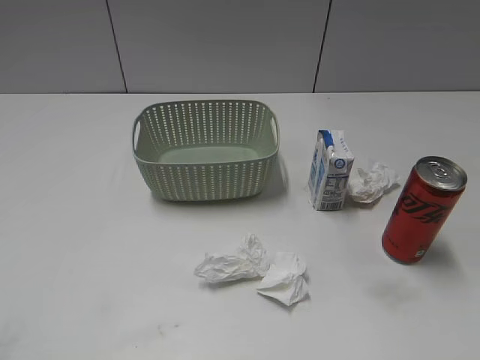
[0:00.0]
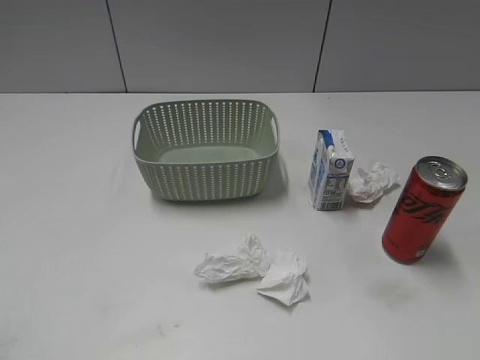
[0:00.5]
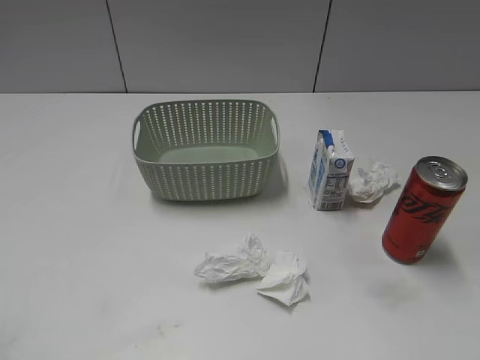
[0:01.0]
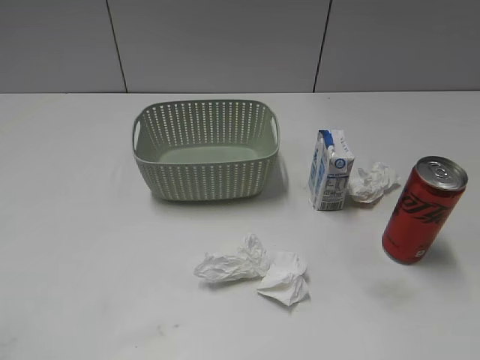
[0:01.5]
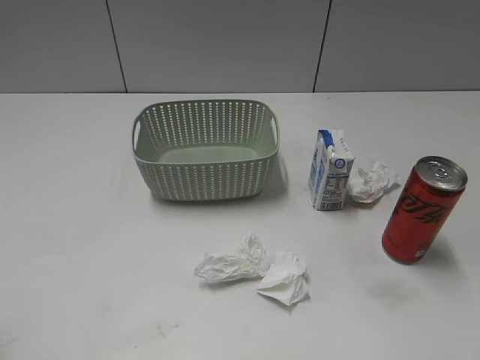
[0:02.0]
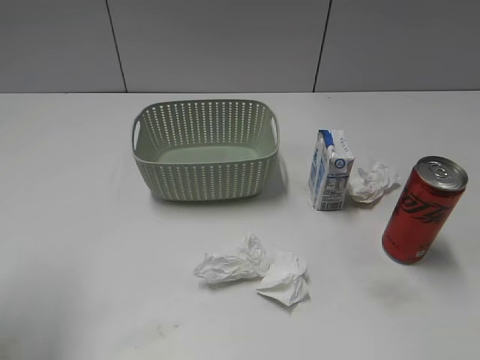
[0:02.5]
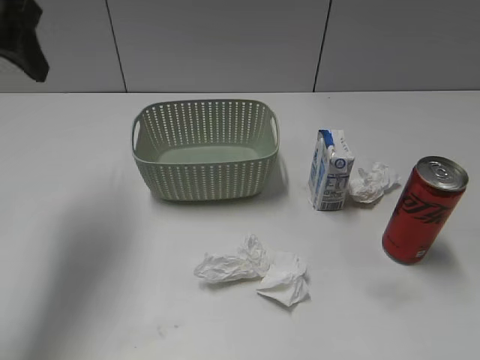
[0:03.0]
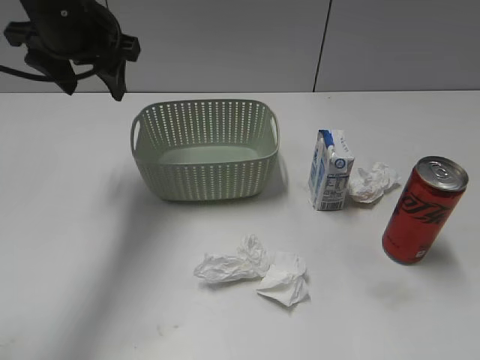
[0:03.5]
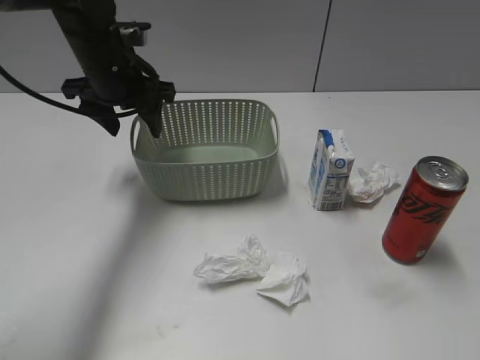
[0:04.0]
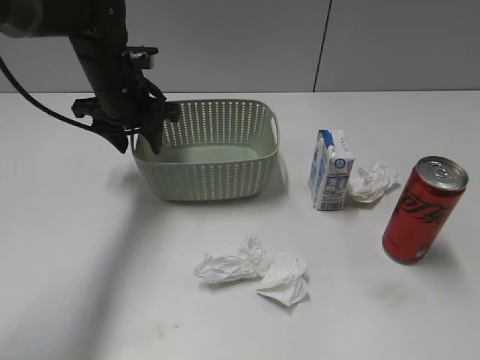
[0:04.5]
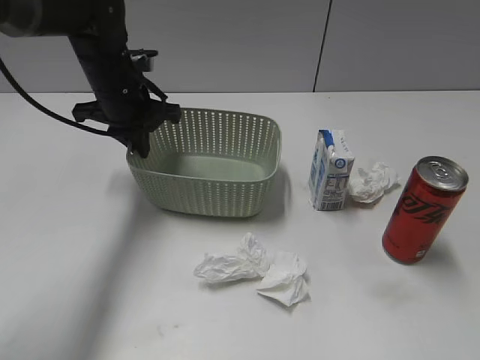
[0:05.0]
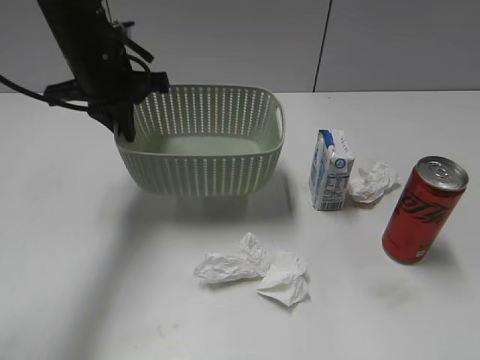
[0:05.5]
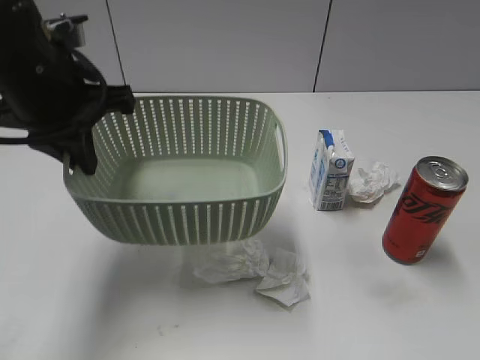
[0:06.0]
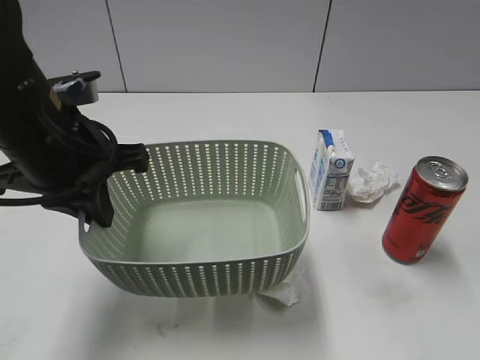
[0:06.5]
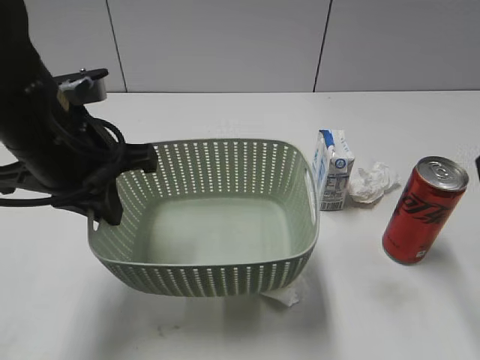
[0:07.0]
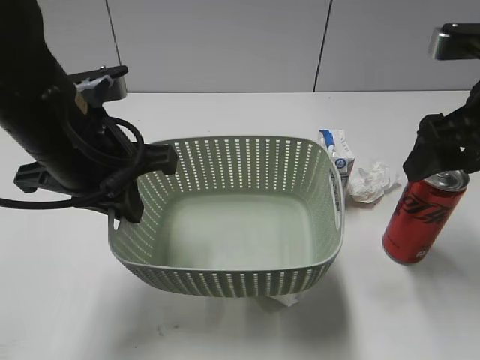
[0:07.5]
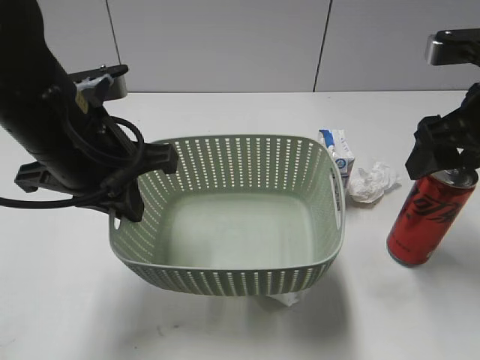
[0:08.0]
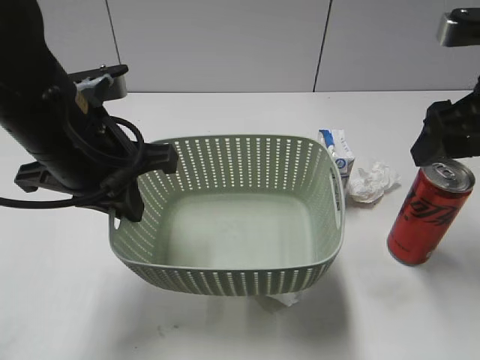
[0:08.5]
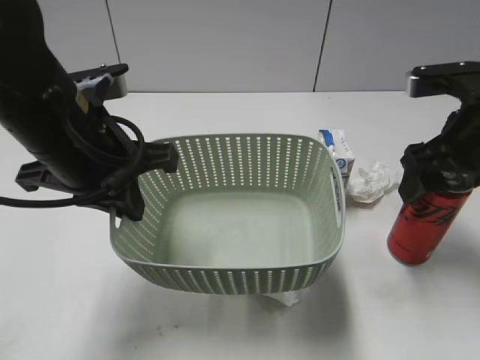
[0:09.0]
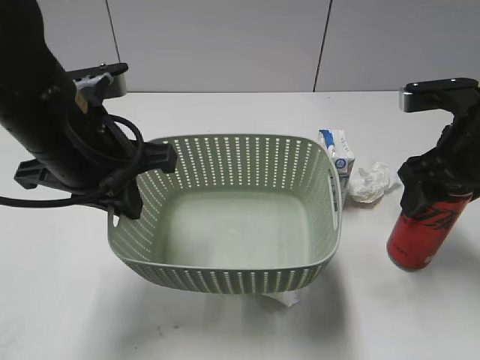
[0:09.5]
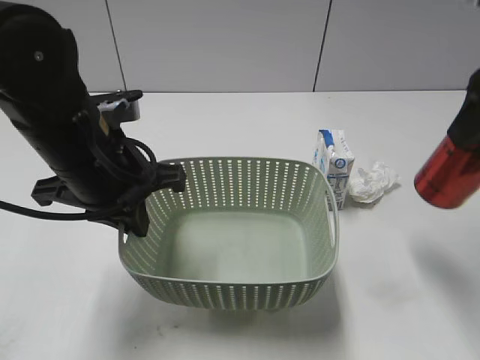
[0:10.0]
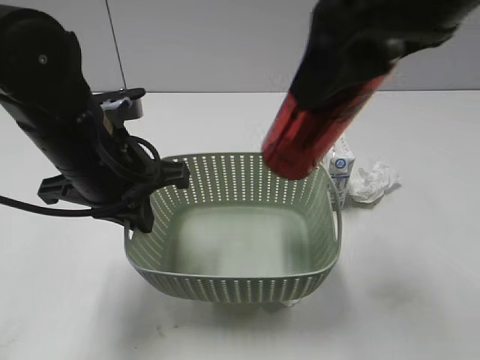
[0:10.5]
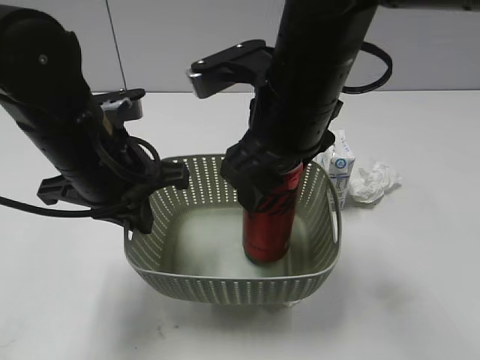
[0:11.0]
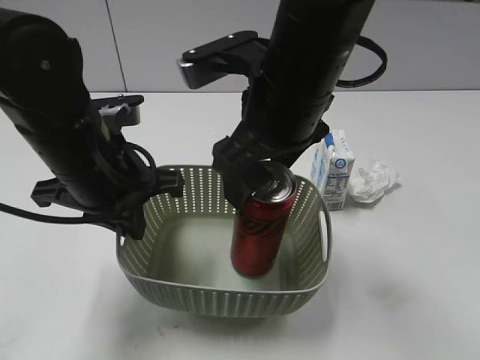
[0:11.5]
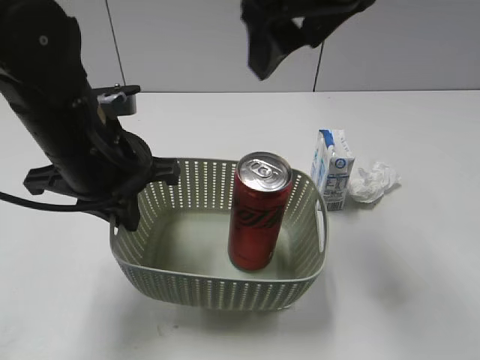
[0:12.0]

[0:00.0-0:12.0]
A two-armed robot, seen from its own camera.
Step, 0:03.0 to 0:04.5: Grasp the basket with left gripper.
Step, 0:05.0 to 0:06.5: Lift the basket with left gripper.
Step, 0:07.0 to 0:09.0: Grasp the cola can with right gripper.
Step, 0:09.5 to 0:11.5: Place the cola can in the basket with right gripper.
0:02.0 to 0:04.0: The left gripper moves forward and to the right, some 40 cm.
0:04.0 to 0:06.0: The left gripper heads backward and upward, covering some 15 cm, and closes its fingers.
0:06.0 to 0:08.0: The left gripper ends up about 5 cm from where it was; the right gripper travels forward by approximately 25 cm, and opens up.
0:08.0 to 0:10.0: The right gripper moves upward, approximately 10 cm, and closes up.
0:10.0 to 0:12.0: The right gripper shifts roughly 15 cm to the left, and opens up.

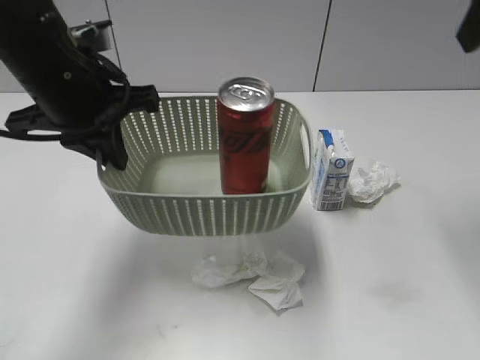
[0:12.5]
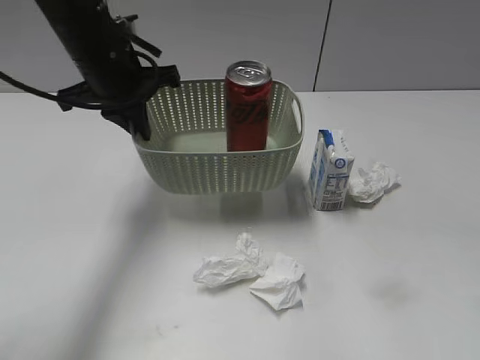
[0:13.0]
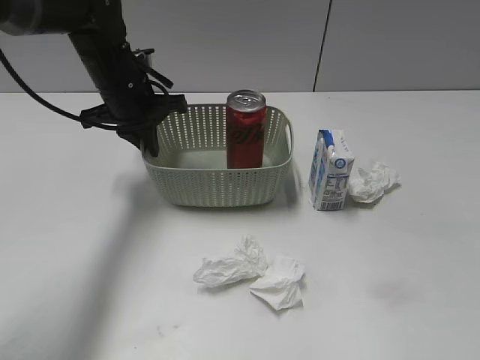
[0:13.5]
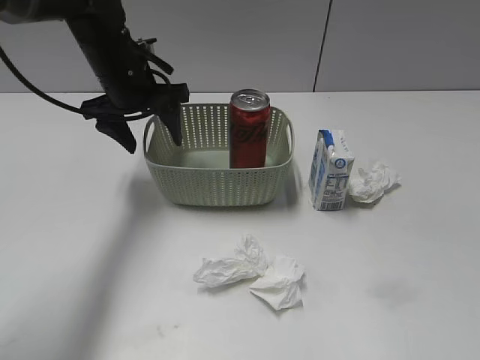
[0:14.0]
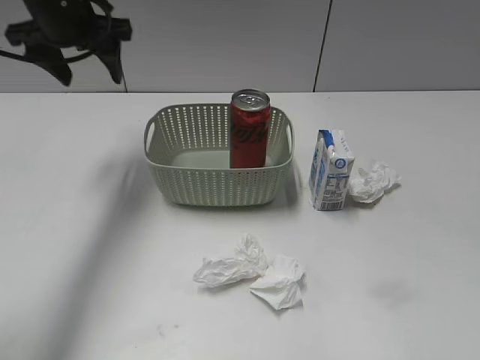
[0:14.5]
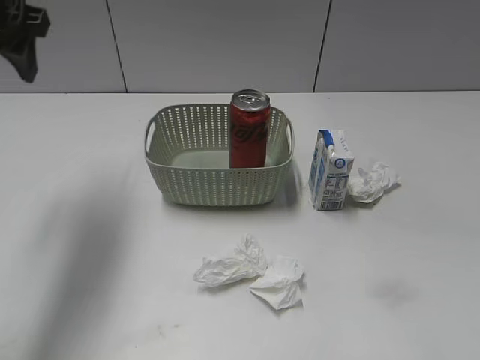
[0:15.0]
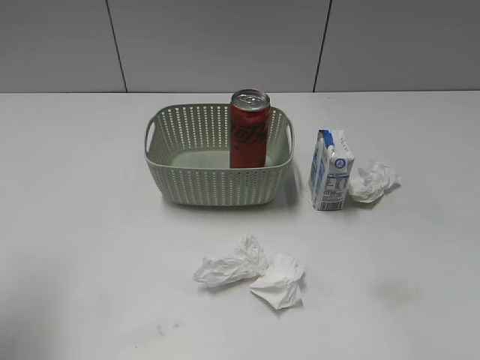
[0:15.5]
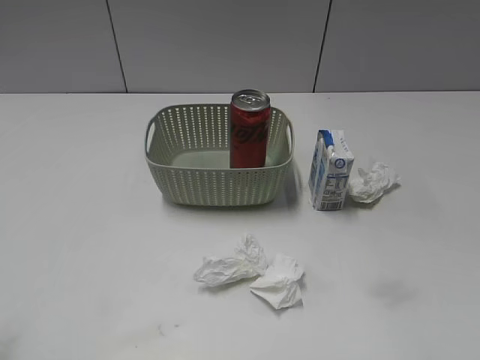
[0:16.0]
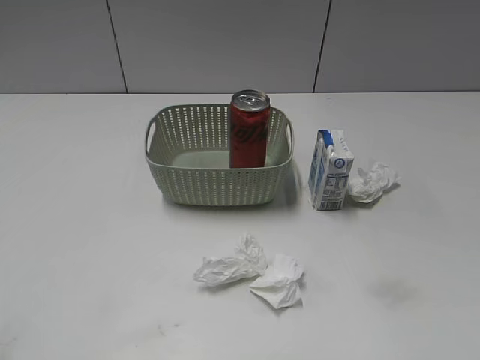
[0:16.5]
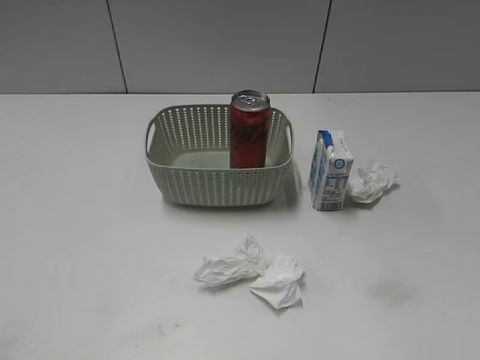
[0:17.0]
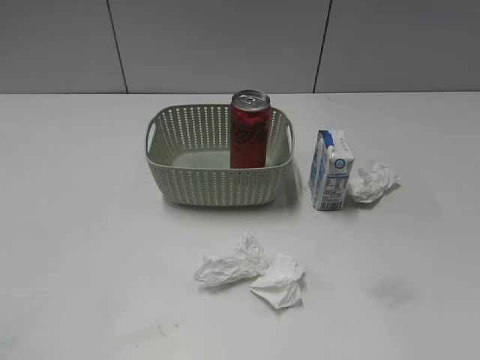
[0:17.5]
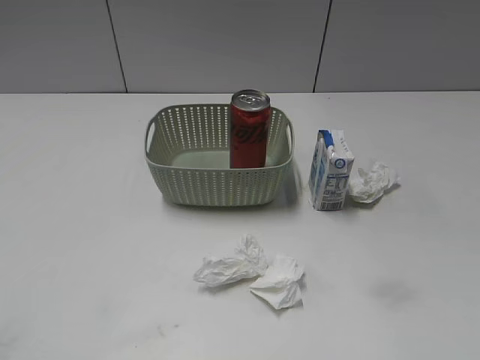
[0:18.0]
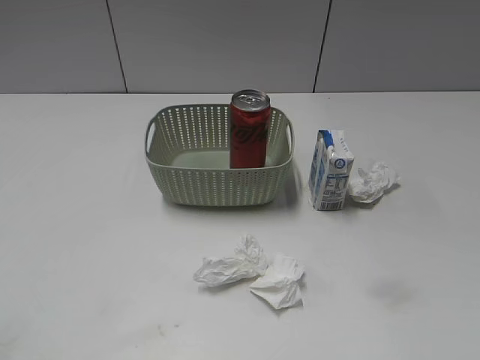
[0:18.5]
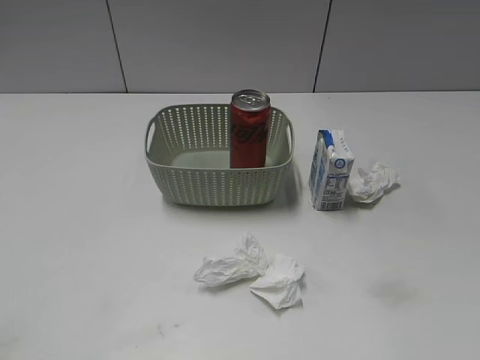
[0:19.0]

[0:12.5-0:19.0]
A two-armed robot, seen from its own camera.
0:12.5 to 0:14.5: The left gripper shifts roughly 10 cm forward, and opens its fingers; the right gripper is displaced backward by about 20 cm.
0:14.5 to 0:17.0: The left gripper shifts approximately 40 cm backward. The right gripper travels backward by approximately 5 cm.

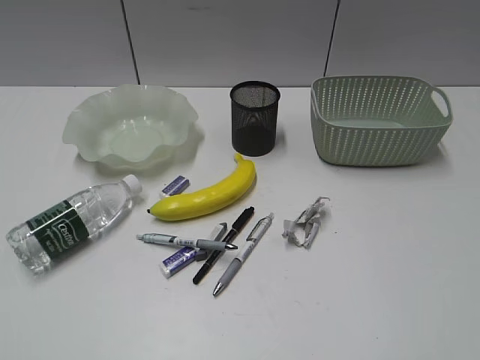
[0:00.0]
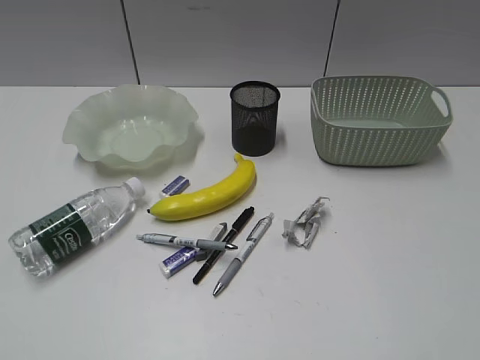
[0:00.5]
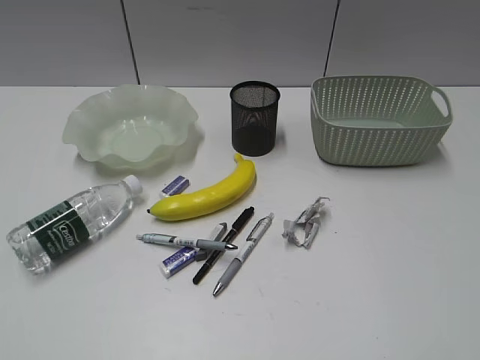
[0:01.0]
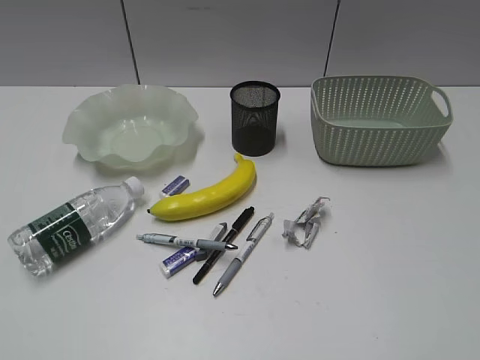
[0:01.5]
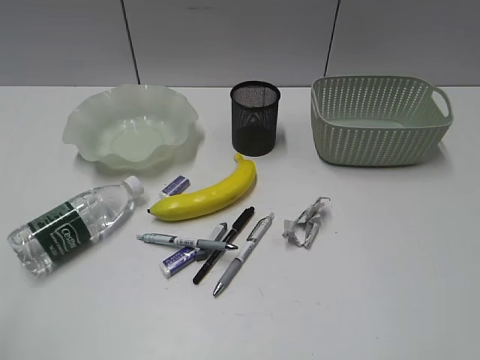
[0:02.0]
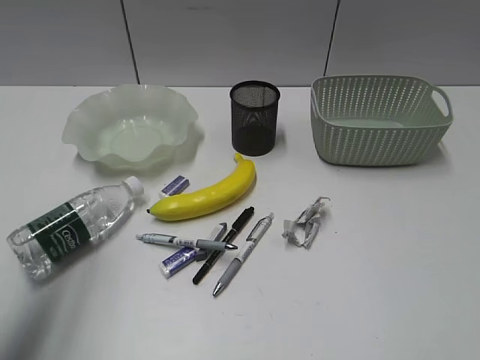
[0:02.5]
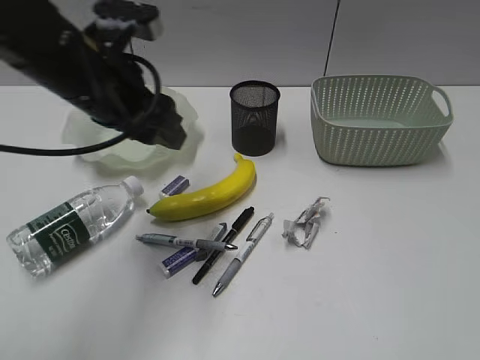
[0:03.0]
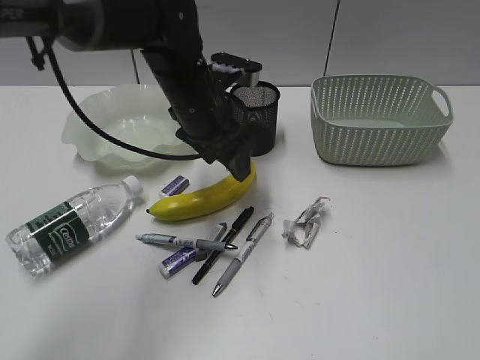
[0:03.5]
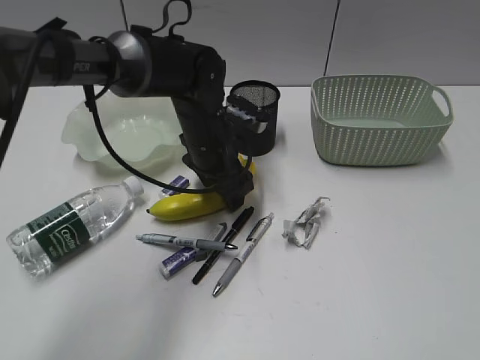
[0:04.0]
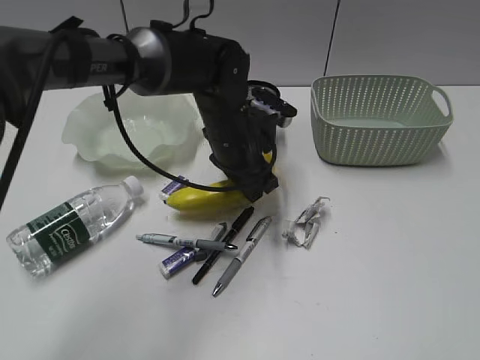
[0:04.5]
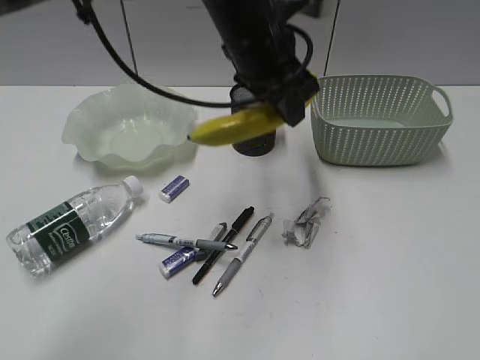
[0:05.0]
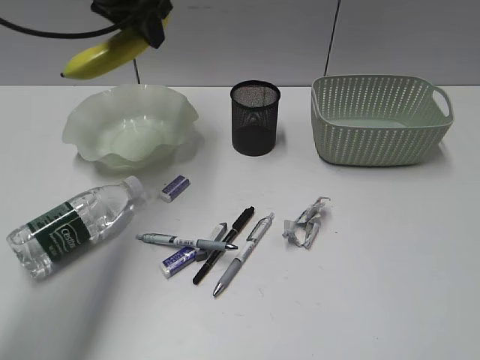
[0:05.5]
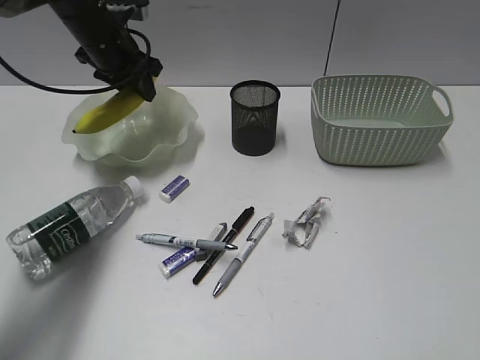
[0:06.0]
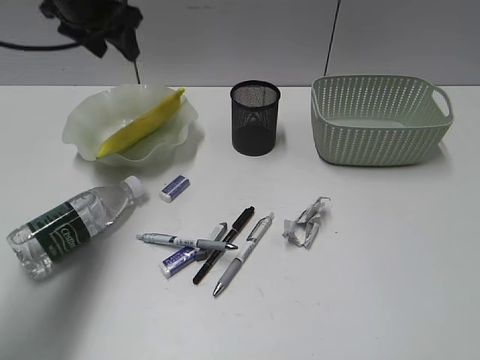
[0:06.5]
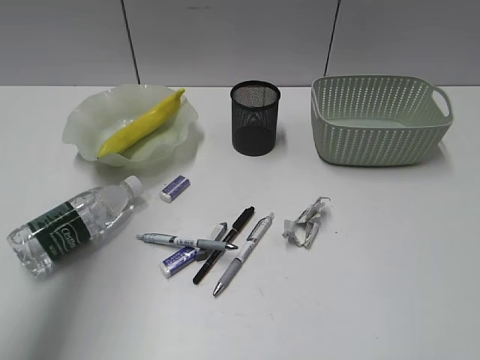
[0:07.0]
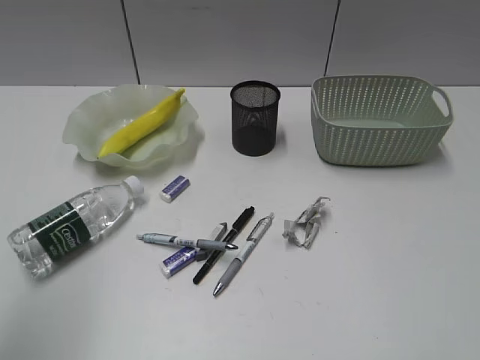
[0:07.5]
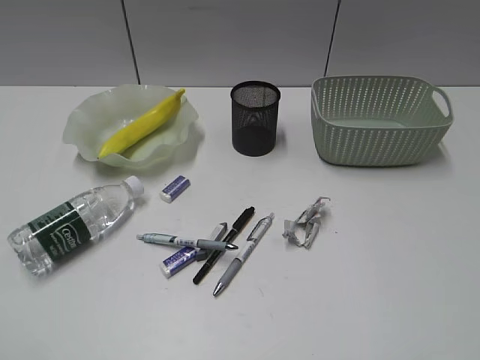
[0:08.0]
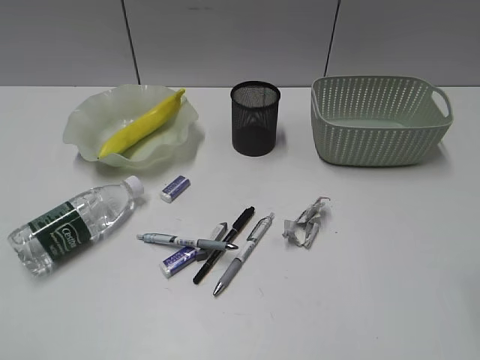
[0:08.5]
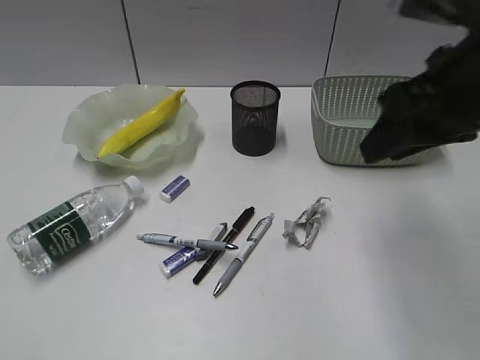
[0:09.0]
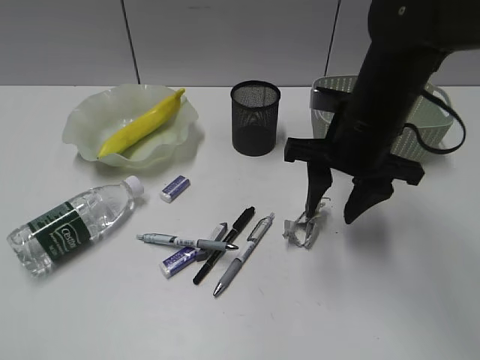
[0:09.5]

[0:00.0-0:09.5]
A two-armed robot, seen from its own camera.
Step, 0:02.0 to 0:04.0: Grasp the banana with left gripper.
Step, 0:04.5 to 0:06.0: Place the banana in the plate with left gripper.
0:02.0 to 0:04.0: The left gripper heads forward, to the right and downward, covering roughly 50 cm, and opens.
0:04.0 to 0:05.5: The left gripper heads upward and to the left, covering roughly 20 cm, and closes up.
0:05.5 to 0:07.5: The left gripper moves backward and to the left, about 35 cm.
0:07.5 to 0:09.5: The right gripper shifts about 35 cm forward and to the left, and opens. The left gripper goes roughly 20 cm backward and downward.
